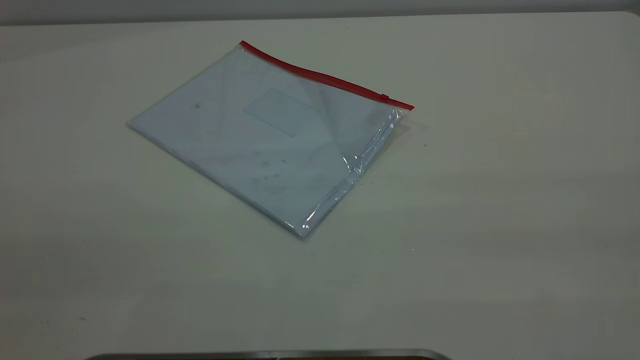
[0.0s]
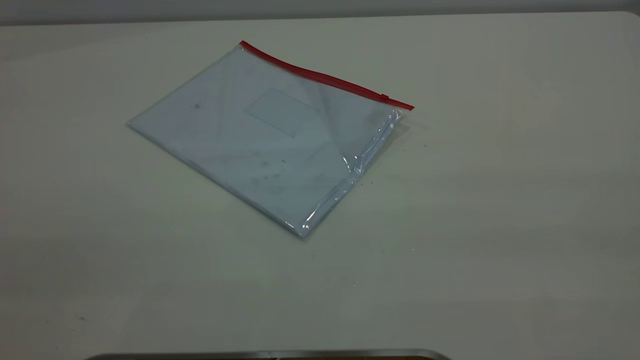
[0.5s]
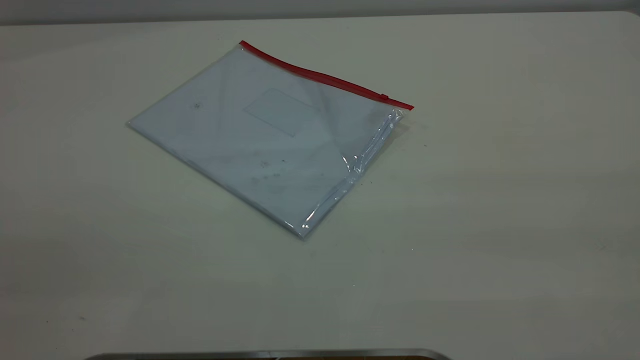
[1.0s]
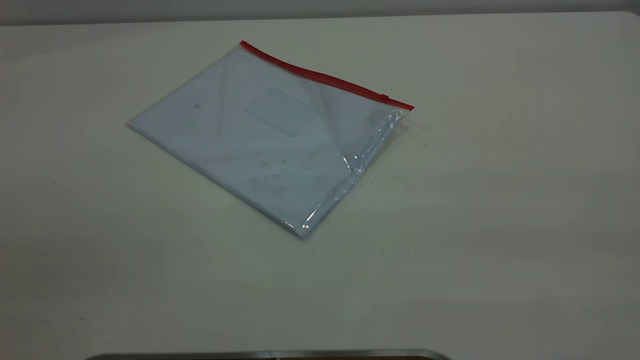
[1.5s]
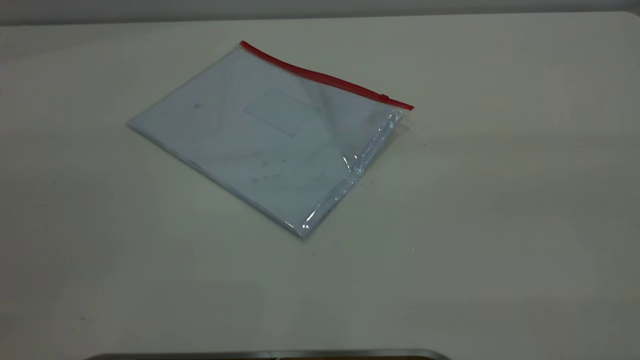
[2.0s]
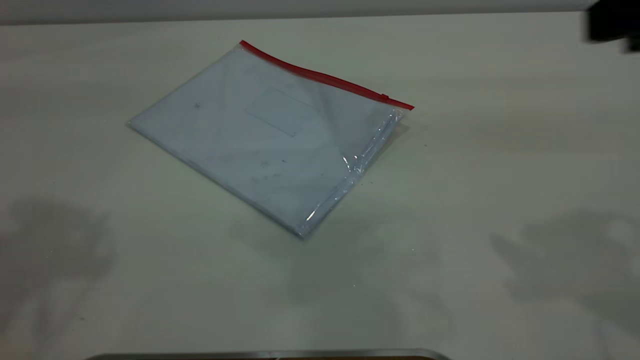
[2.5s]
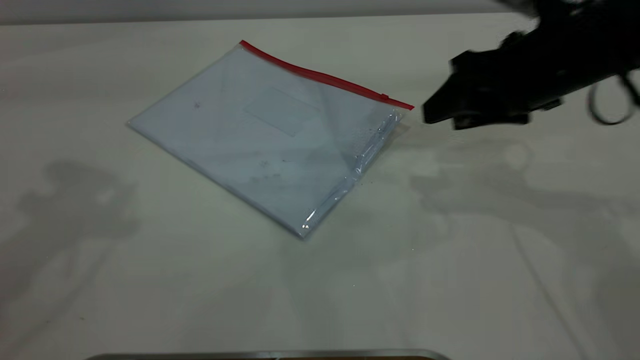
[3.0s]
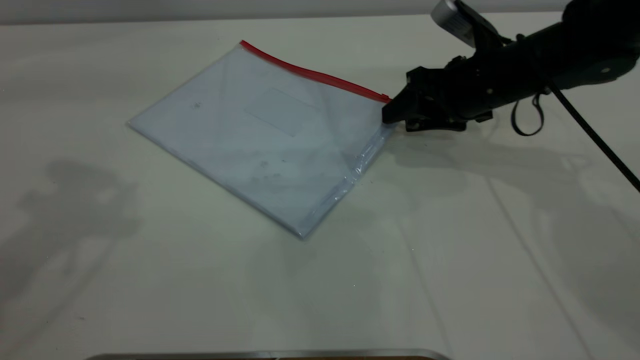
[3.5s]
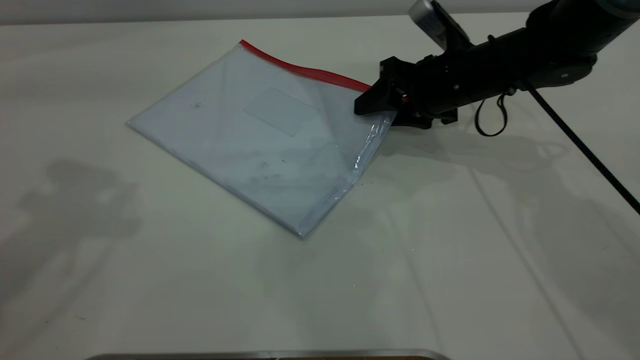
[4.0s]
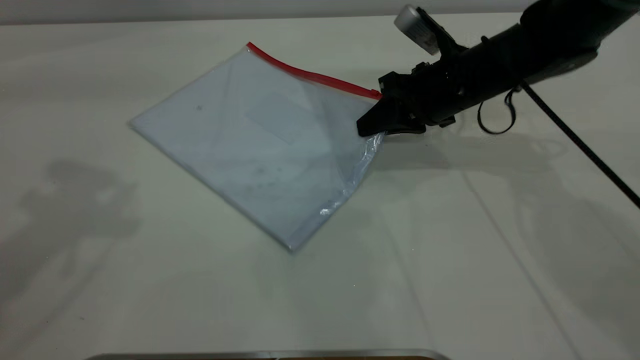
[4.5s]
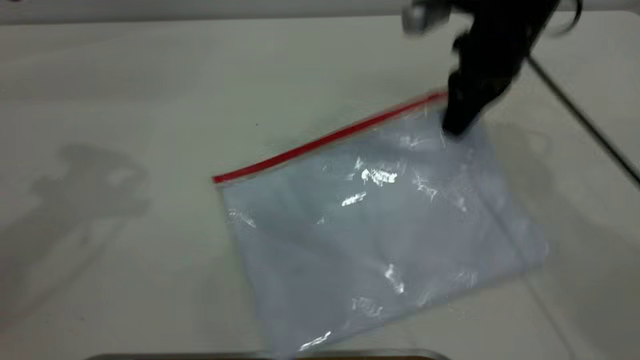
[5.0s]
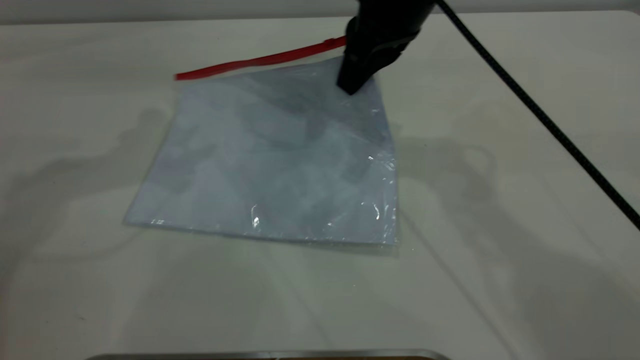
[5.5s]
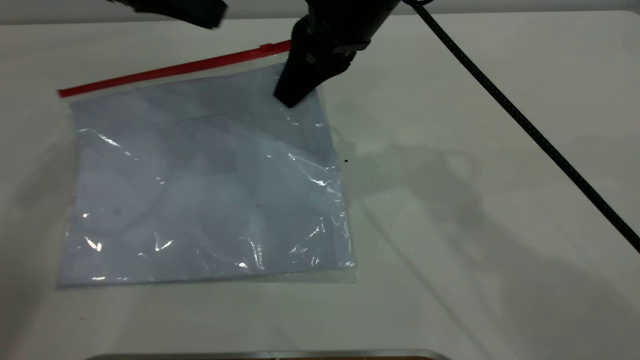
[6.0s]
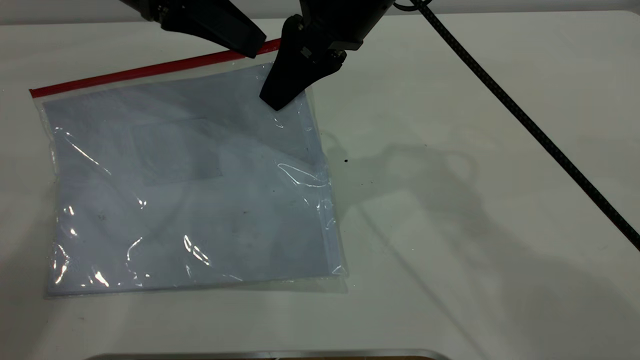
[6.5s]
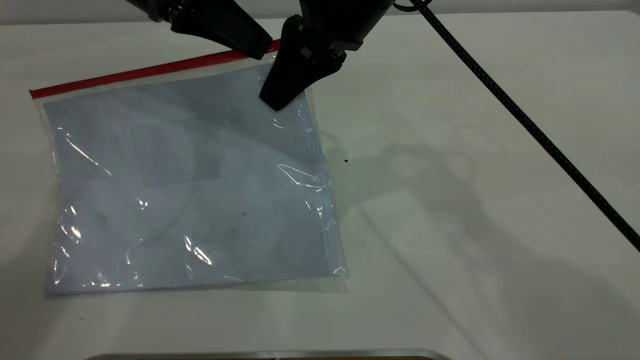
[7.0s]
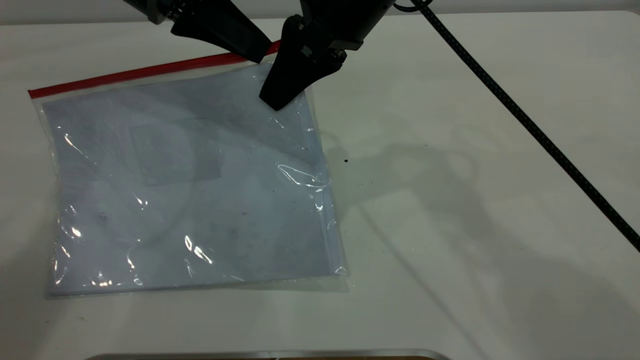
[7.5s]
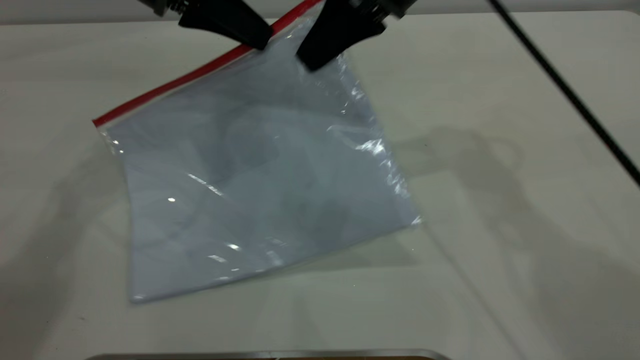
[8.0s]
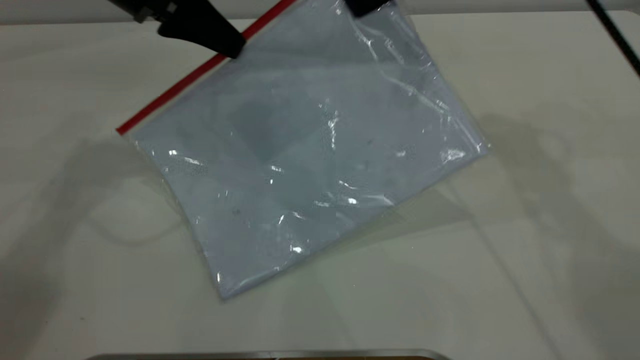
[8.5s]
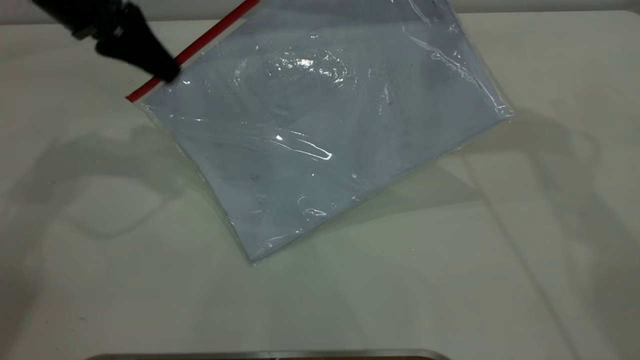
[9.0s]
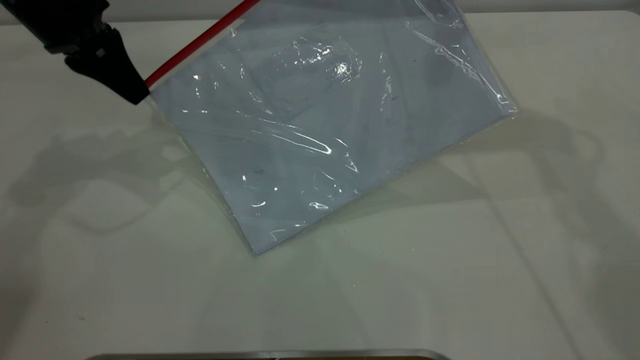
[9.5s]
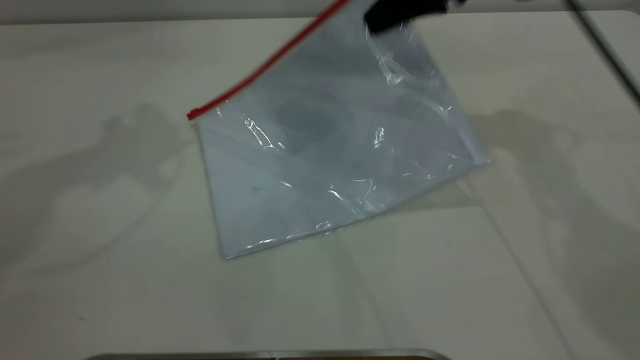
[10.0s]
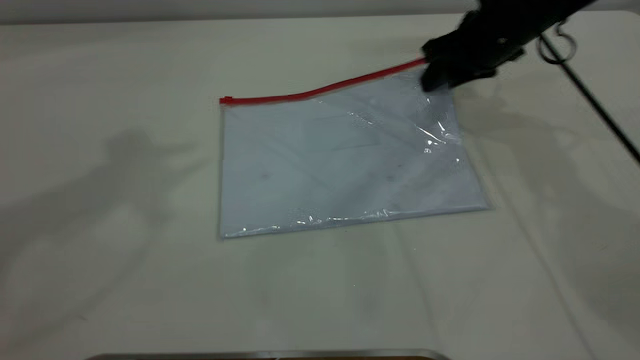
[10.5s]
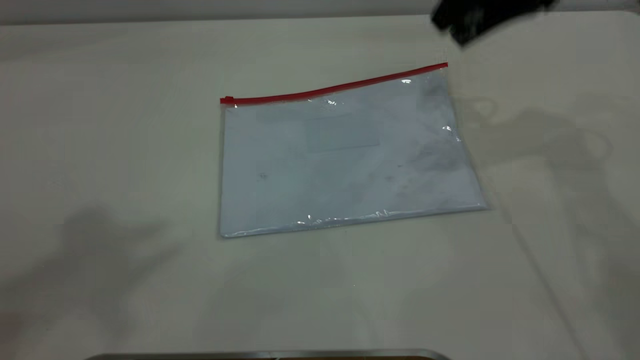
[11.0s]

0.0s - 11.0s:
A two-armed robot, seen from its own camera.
Step, 0.0s - 5.0s: Pick up the transparent plastic bag with the right gripper.
Step, 5.5s - 9.5s: Pulling up the zipper on the transparent plastic bag with the left gripper to close it.
Step, 10.0s - 10.5s: Place the transparent plastic bag.
2.0s - 3.5s: The right gripper heads forward and downward, covering some 50 cm. Meanwhile the left gripper moves forward, roughly 20 cm.
3.5s - 5.5s: The right gripper is displaced upward and to the left by approximately 20 cm, and closes up. Meanwhile the left gripper travels forward and downward by about 10 cm.
5.5s - 7.5s: The left gripper travels to the right by some 5 cm, and closes its fingers.
7.5s - 9.0s: The left gripper is displaced to the left by roughly 10 cm, while the right gripper heads to the right and forward, covering roughly 15 cm.
9.0s - 11.0s: The right gripper travels downward and back again, roughly 15 cm each way, and opens its fingers. Meanwhile the left gripper travels upward and backward by some 40 cm, and opens its fingers.

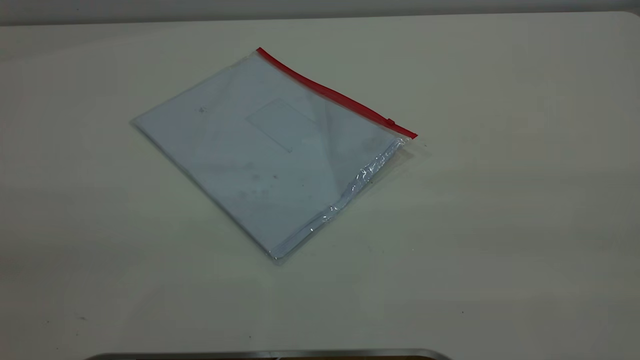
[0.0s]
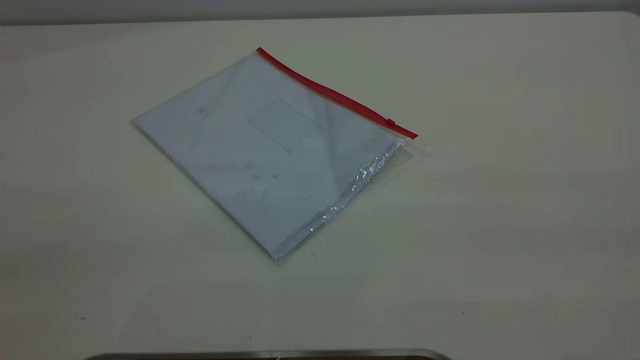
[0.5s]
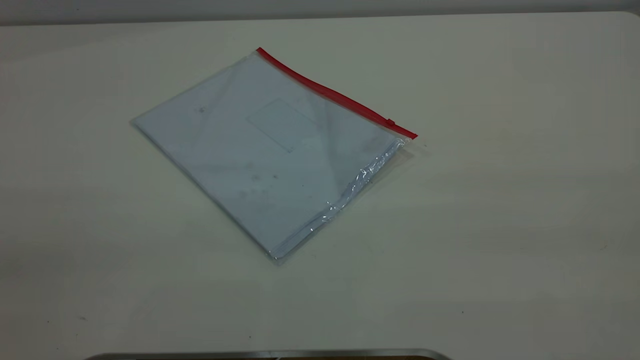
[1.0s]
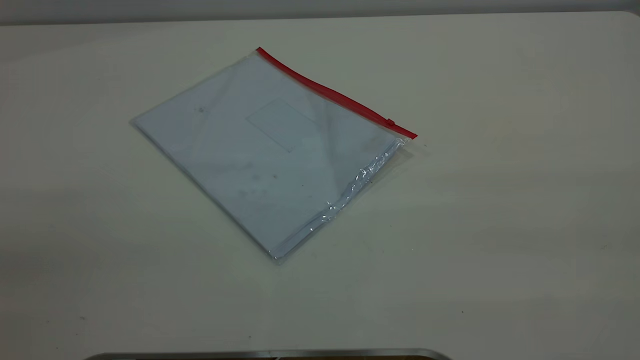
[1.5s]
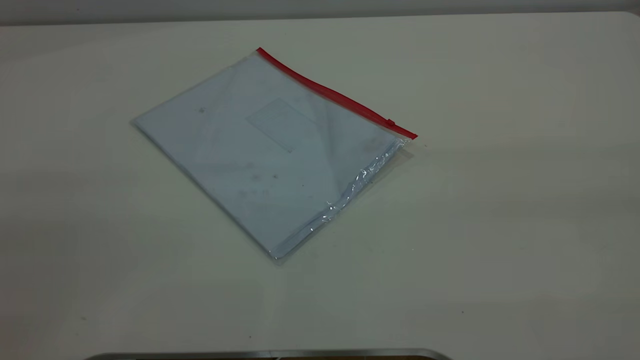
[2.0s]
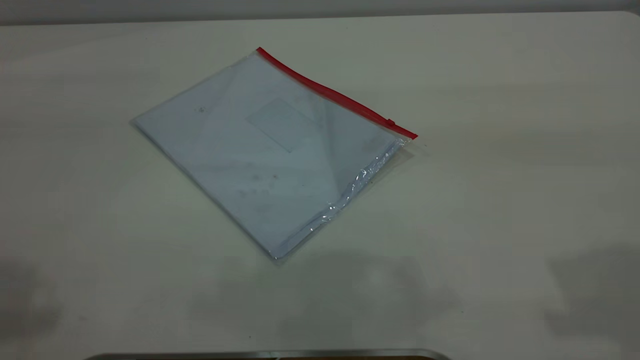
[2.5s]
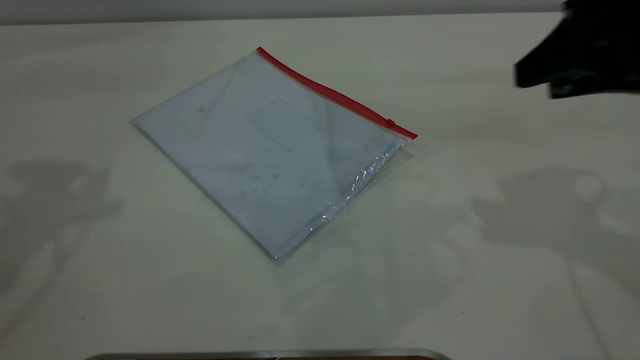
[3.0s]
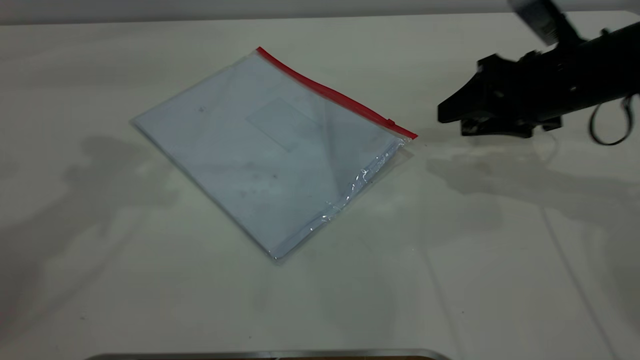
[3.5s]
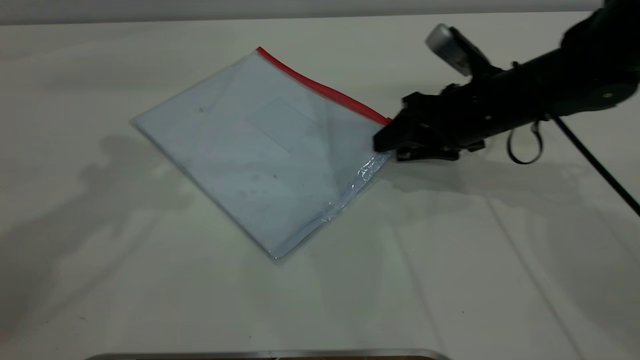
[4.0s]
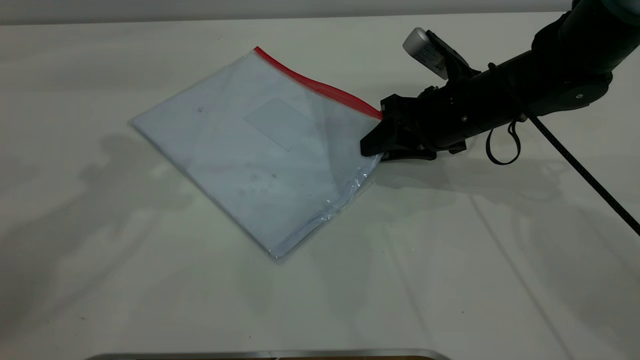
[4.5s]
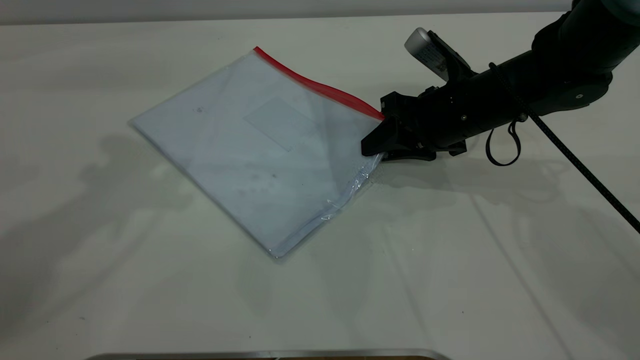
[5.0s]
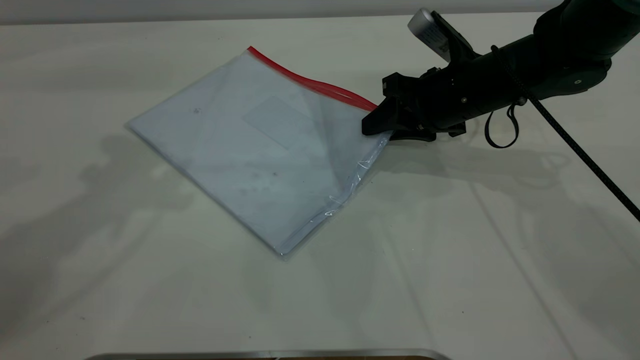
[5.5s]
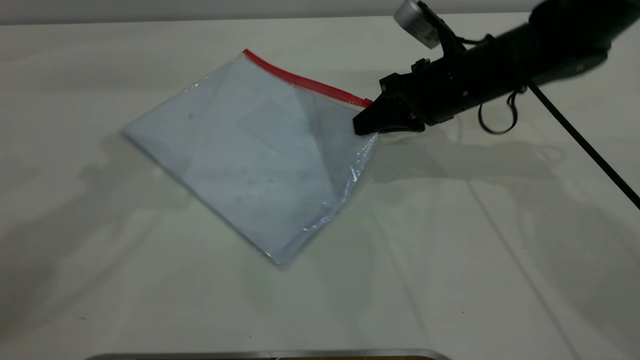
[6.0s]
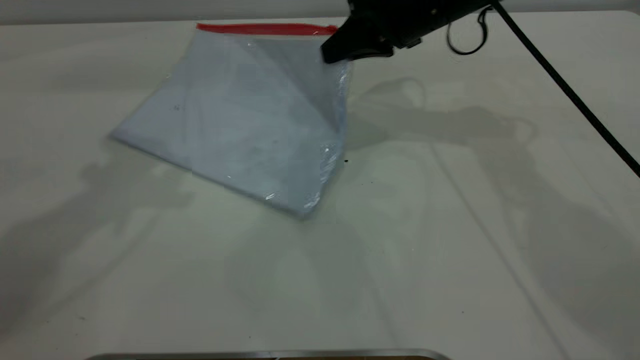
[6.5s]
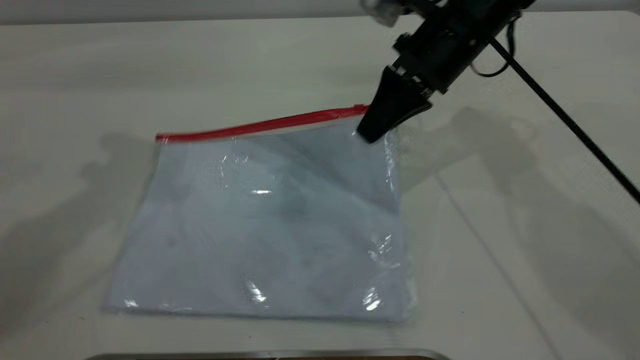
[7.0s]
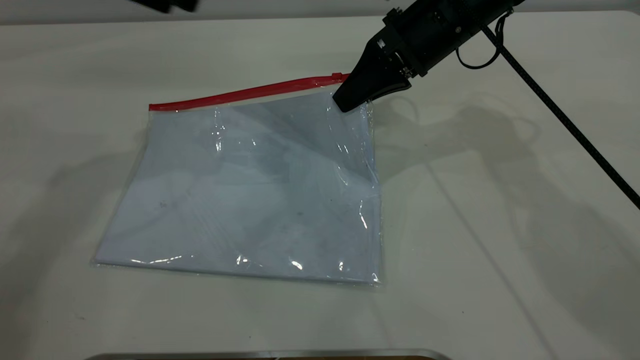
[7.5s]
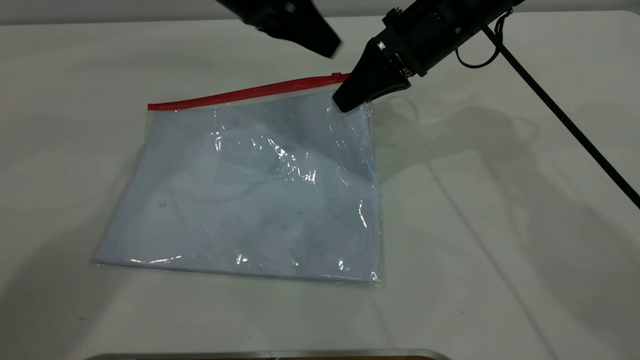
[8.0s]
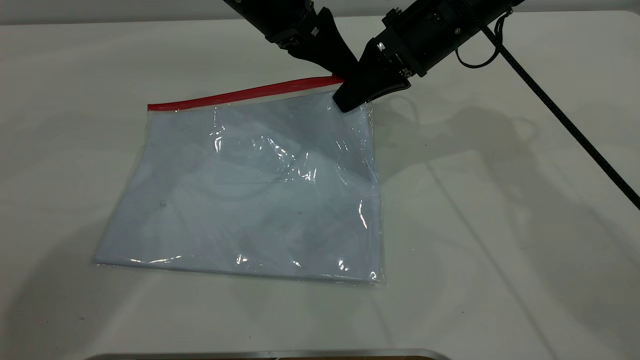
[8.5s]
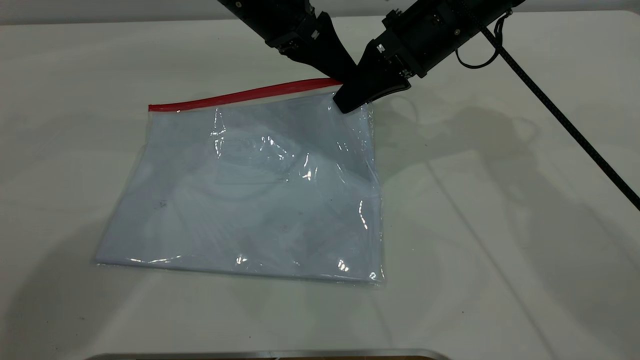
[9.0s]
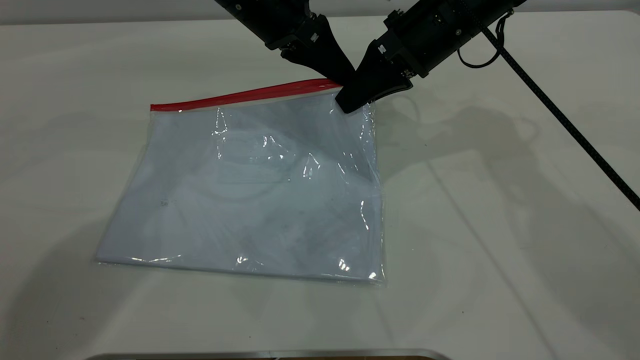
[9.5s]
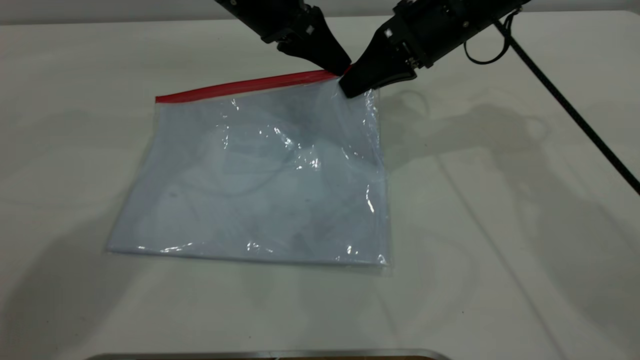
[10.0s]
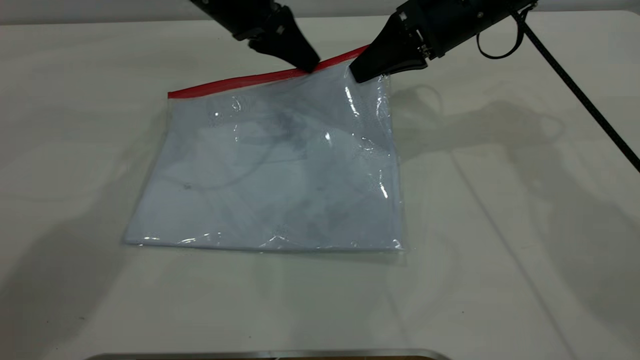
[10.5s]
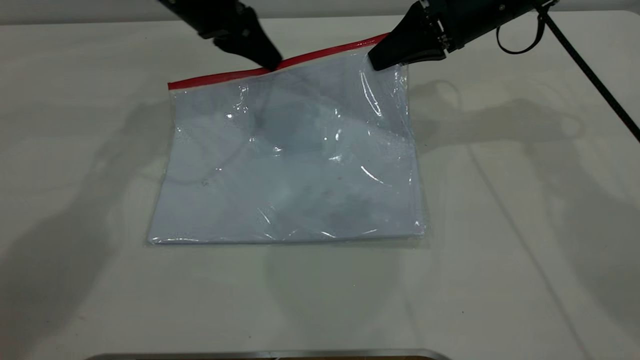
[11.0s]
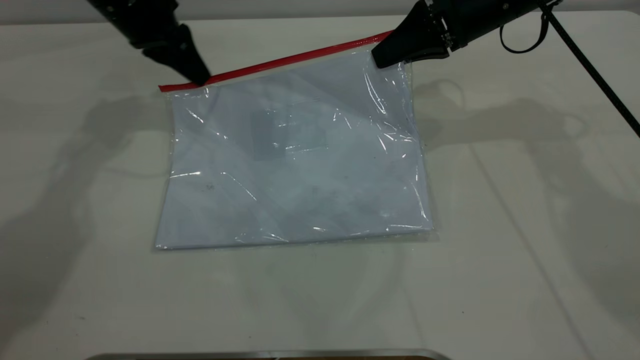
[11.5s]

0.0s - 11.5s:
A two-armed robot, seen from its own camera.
Step, 0.0s - 6.0s: Pick up the transparent plastic bag with the right gripper.
2.0s - 4.0s: The right gripper heads forward and downward, covering about 50 cm; the left gripper heads forward, covering approximately 30 cm, and opens up.
4.0s - 6.0s: The right gripper closes.
6.0s - 7.5s: The left gripper travels forward and downward by approximately 10 cm. Meanwhile the right gripper is displaced upward by some 5 cm.
7.5s - 9.5s: The left gripper moves to the right and downward, approximately 15 cm, and closes its fingers.
9.5s - 11.5s: The right gripper moves to the right, about 5 cm. Meanwhile the left gripper heads to the left, covering approximately 15 cm.
